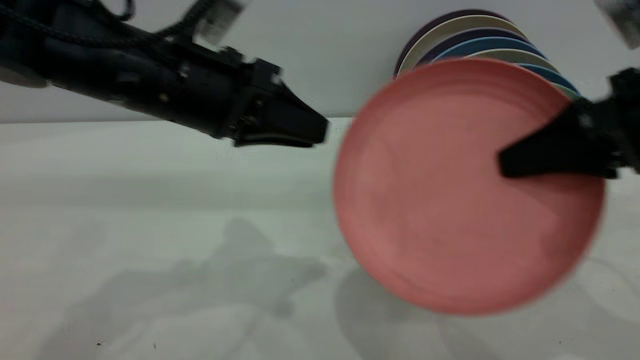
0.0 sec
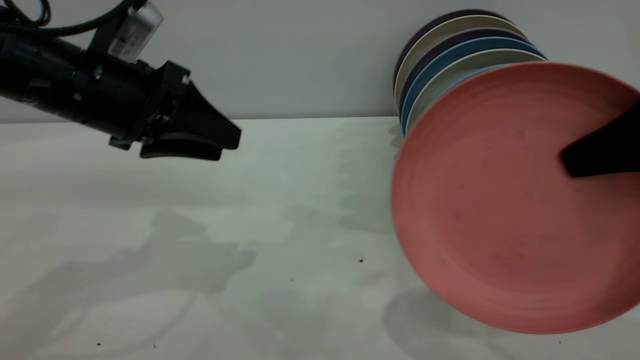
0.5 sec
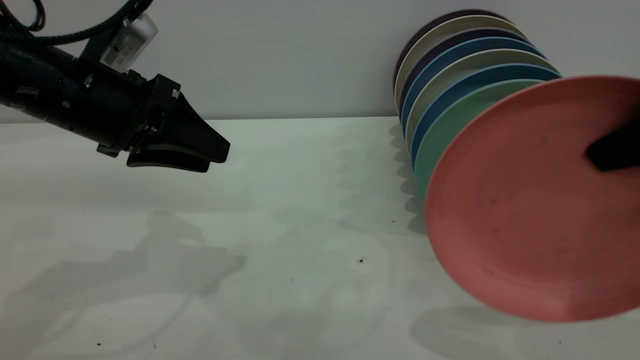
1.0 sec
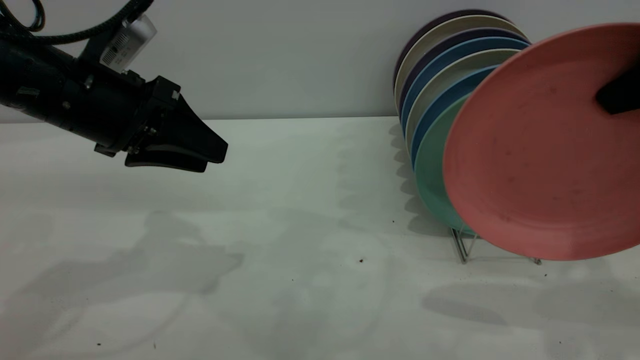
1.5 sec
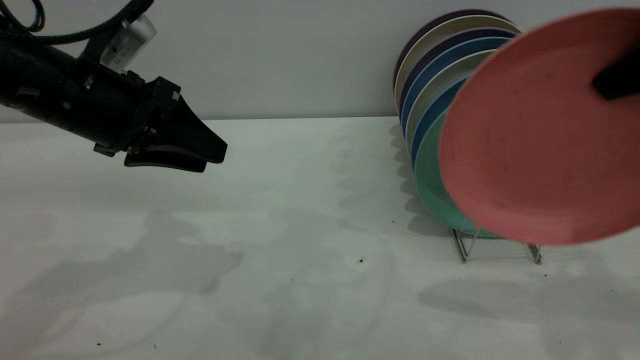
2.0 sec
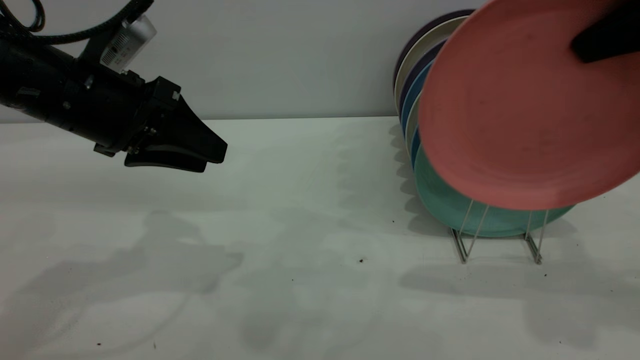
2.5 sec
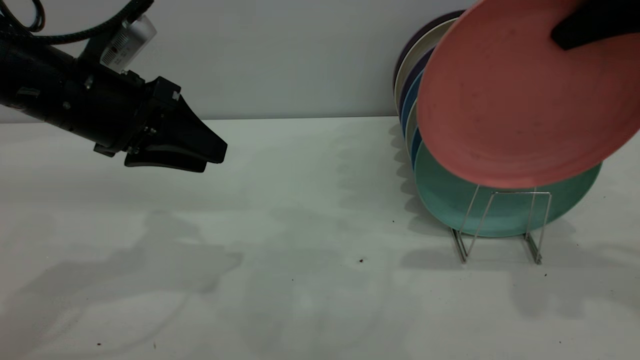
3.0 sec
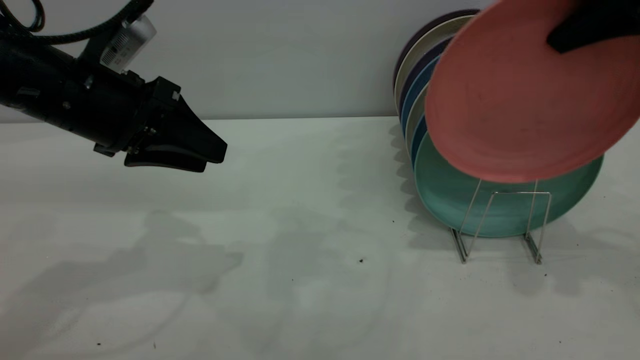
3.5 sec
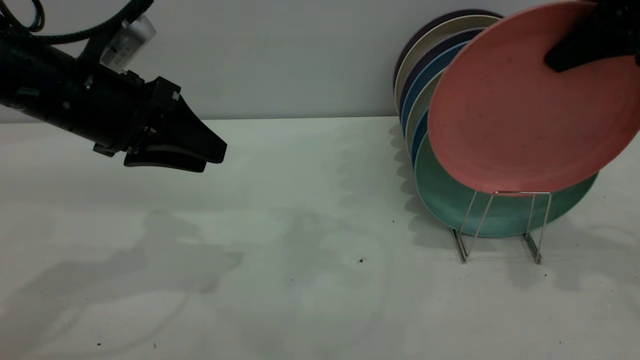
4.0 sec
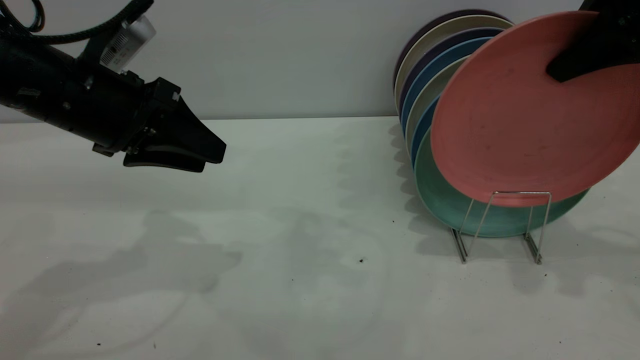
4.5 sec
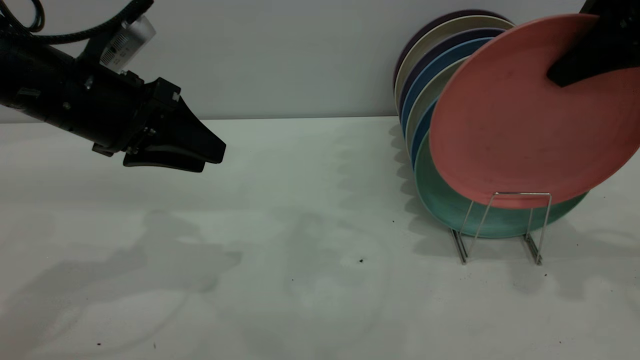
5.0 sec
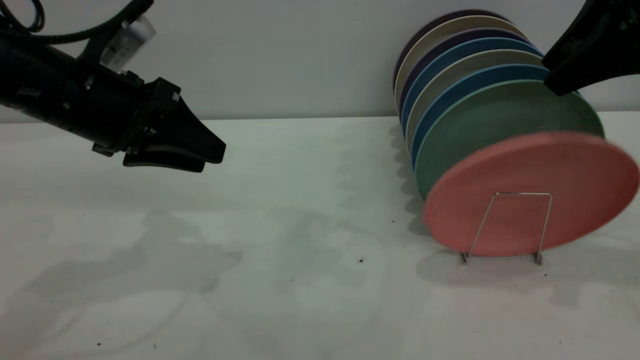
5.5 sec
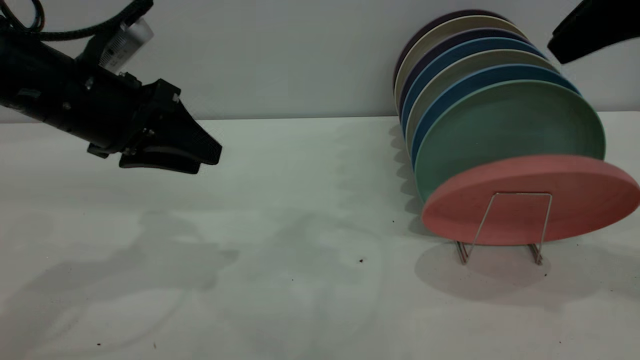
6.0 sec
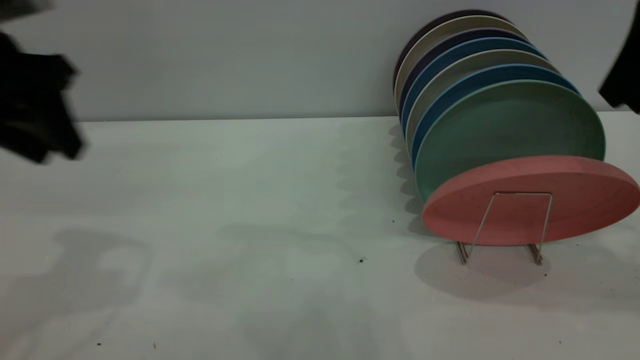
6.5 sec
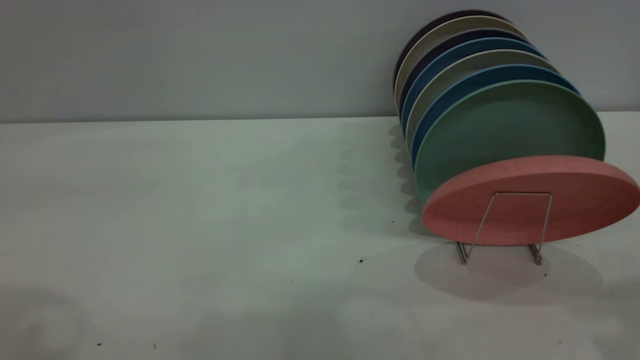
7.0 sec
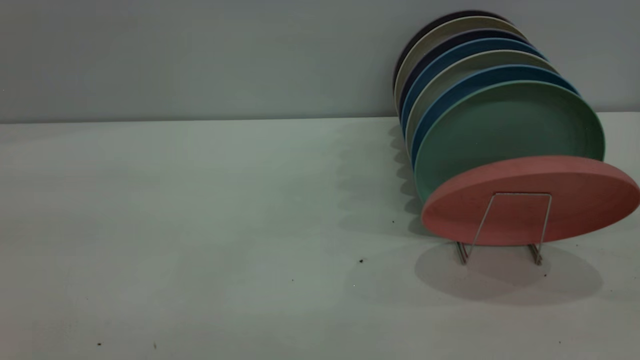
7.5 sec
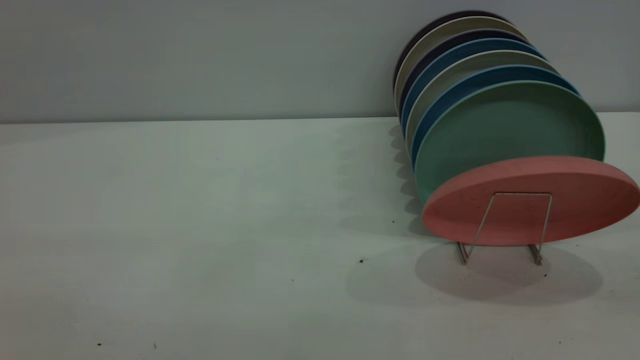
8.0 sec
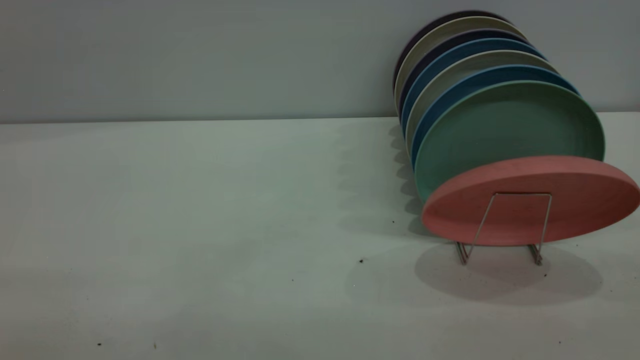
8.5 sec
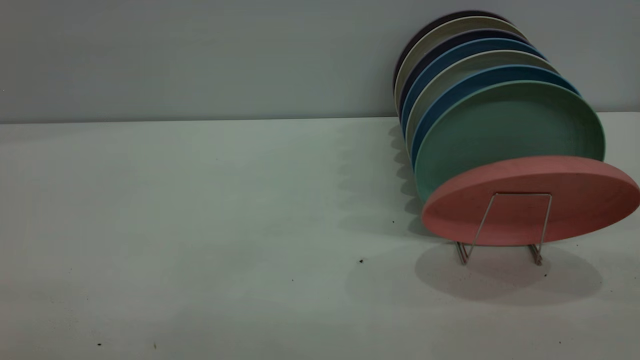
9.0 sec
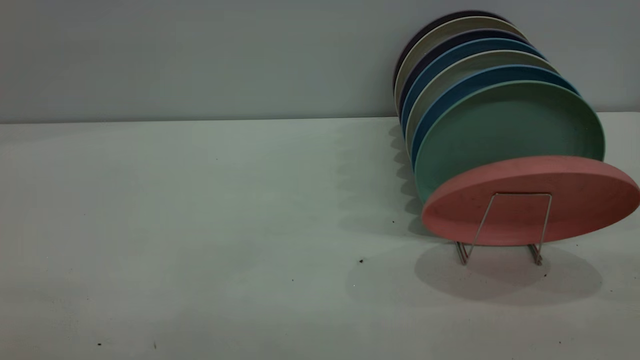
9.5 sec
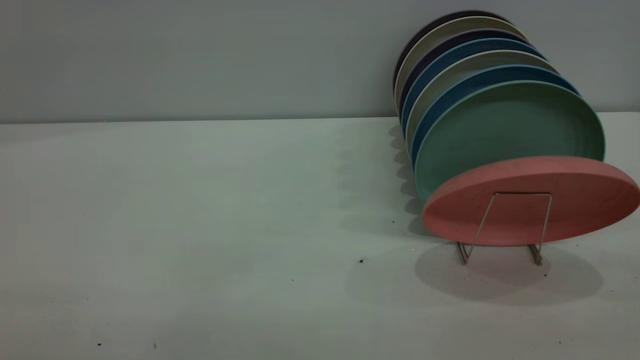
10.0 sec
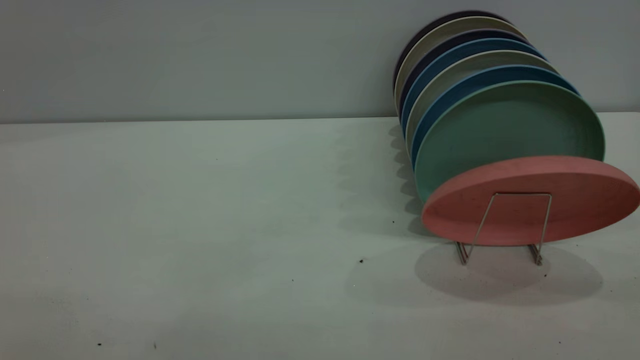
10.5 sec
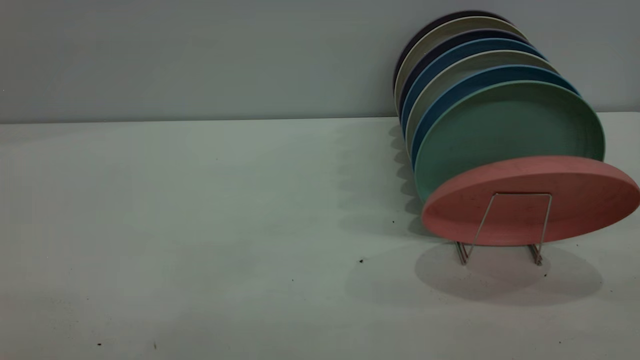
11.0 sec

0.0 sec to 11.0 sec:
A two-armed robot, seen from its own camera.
Task of the whole recording: put the plate on the plate rack.
Step, 0.0 sec to 5.0 sec: Place the plate on the shelf.
0.0 sec to 2.0 sec: The right gripper moves upward, roughly 10 cm. The left gripper travels to the left by about 10 cm, and opens up.
2.0 sec to 3.5 sec: The right gripper is displaced forward by about 10 cm.
3.5 sec to 5.5 sec: The right gripper opens up.
5.5 sec to 7.5 sec: Both grippers travel together backward and upward, about 35 cm.
